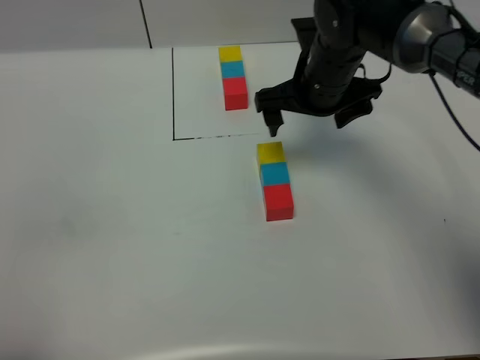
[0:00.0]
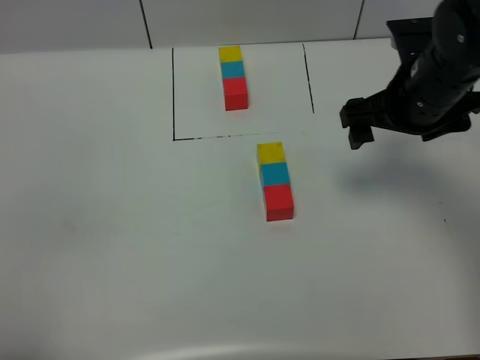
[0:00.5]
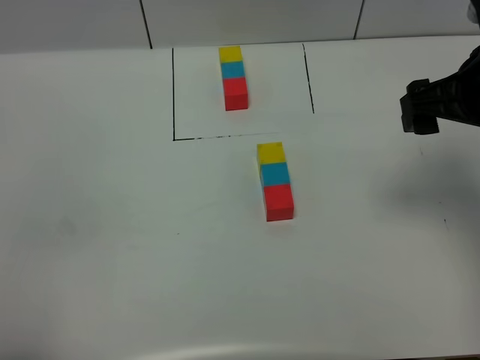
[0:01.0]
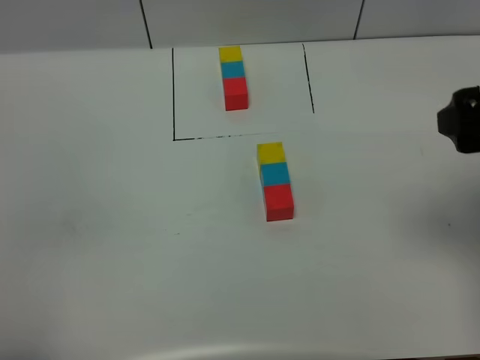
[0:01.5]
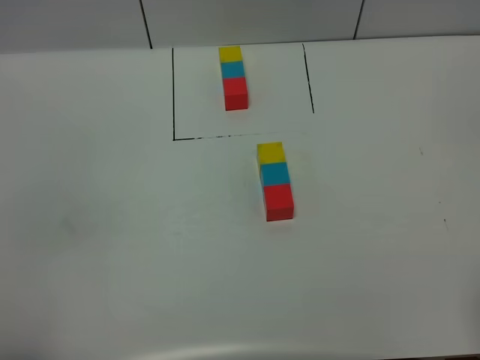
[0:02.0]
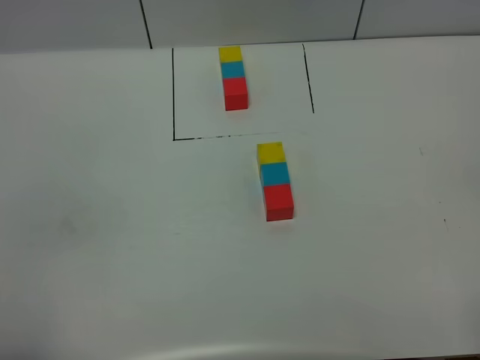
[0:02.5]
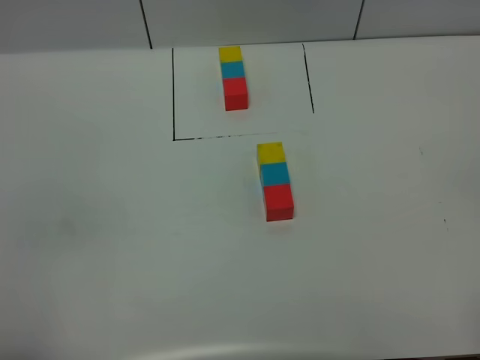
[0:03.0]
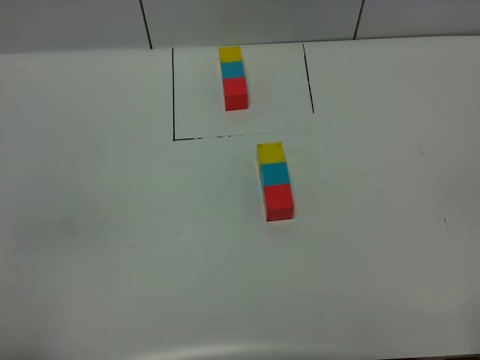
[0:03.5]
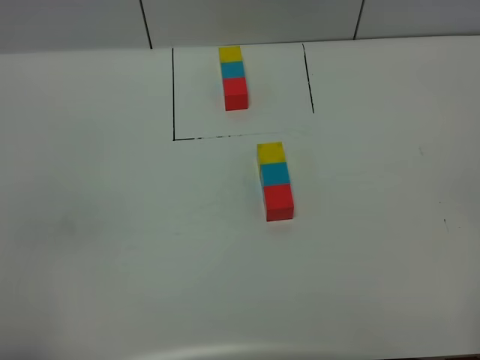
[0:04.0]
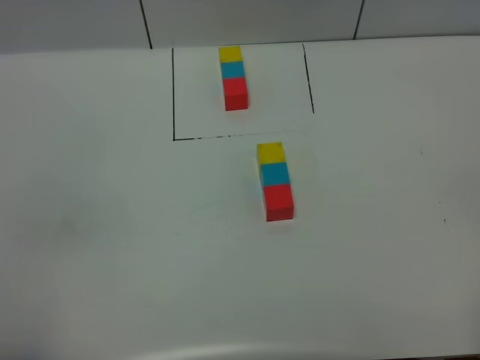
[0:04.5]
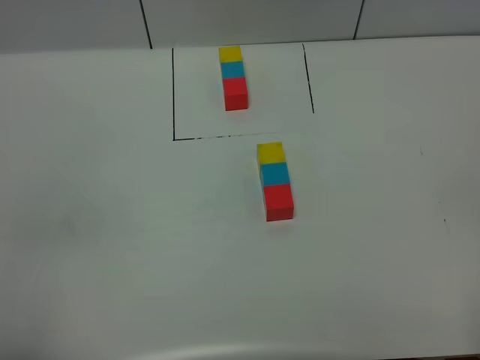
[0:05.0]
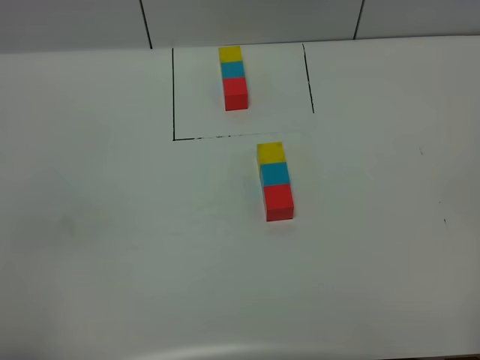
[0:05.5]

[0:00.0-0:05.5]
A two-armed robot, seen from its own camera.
Task of the whole recording: According to the building block template in front, assemble the scattered blocks together.
0:00.0 to 0:02.0: The right gripper shifts about 40 cm backward and to the right.
0:03.5 to 0:05.5: Both grippers stay put.
